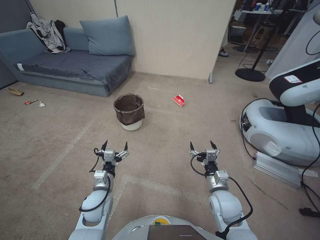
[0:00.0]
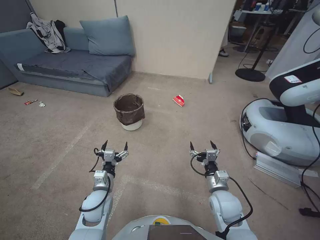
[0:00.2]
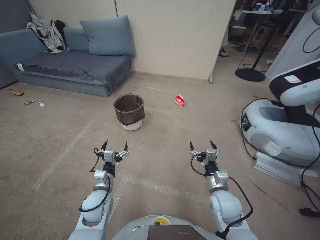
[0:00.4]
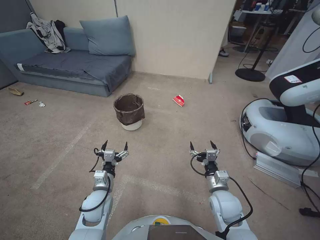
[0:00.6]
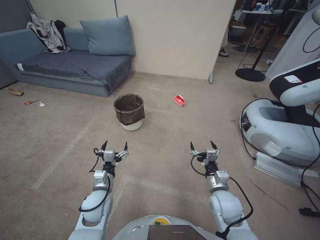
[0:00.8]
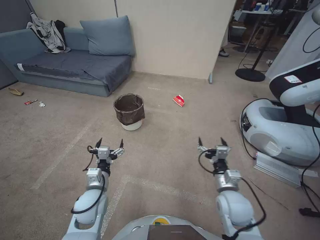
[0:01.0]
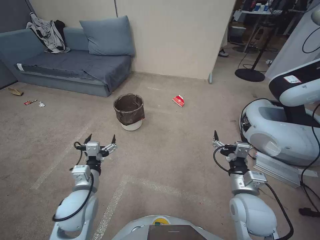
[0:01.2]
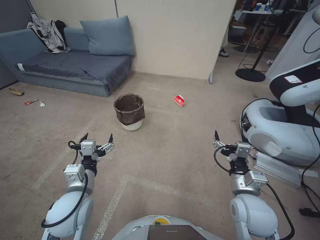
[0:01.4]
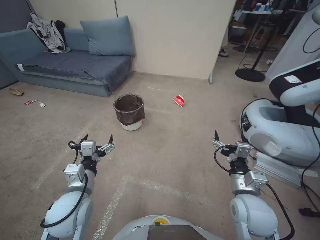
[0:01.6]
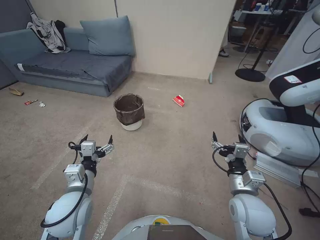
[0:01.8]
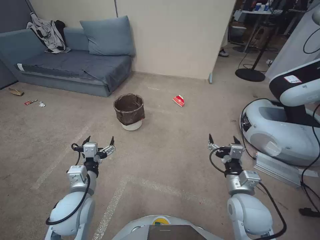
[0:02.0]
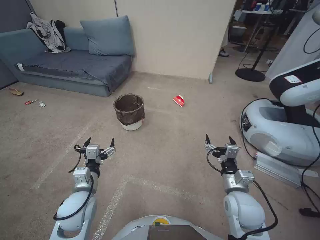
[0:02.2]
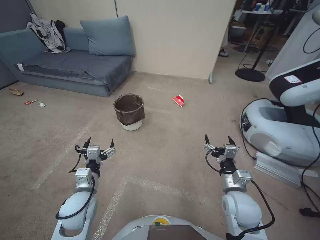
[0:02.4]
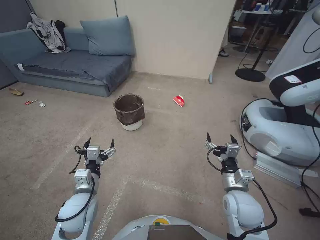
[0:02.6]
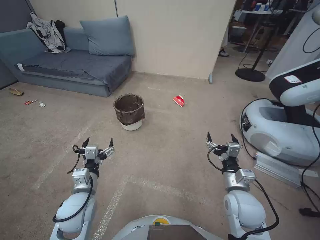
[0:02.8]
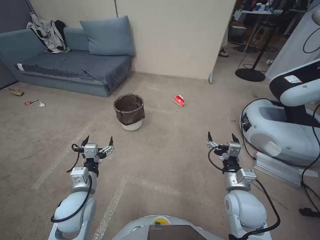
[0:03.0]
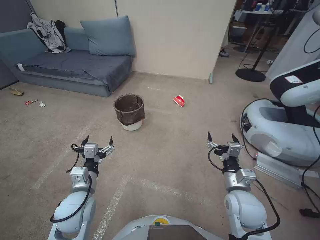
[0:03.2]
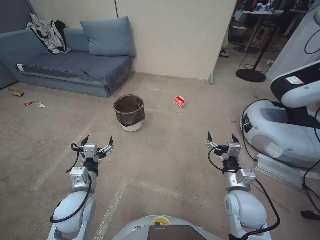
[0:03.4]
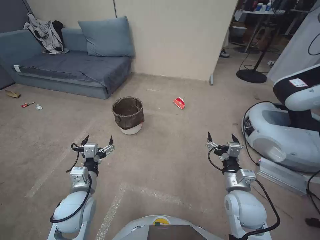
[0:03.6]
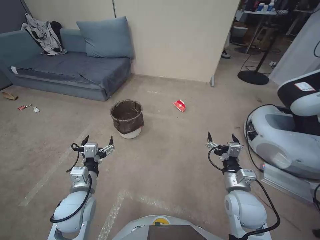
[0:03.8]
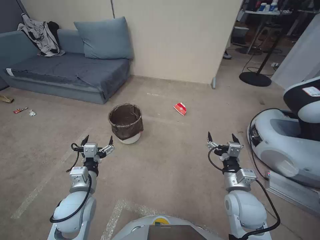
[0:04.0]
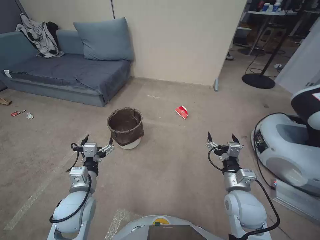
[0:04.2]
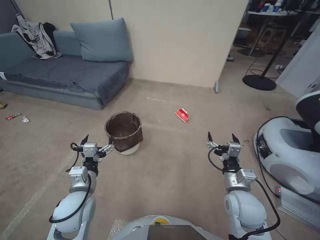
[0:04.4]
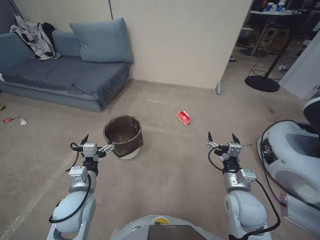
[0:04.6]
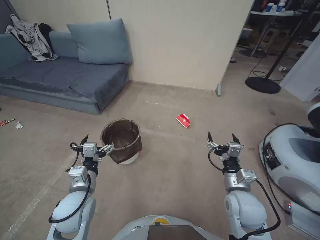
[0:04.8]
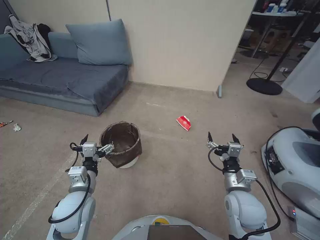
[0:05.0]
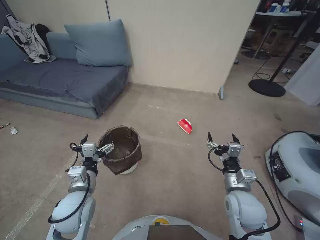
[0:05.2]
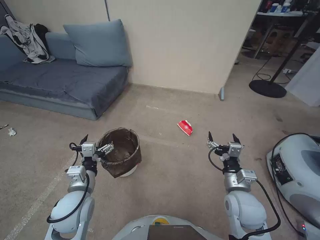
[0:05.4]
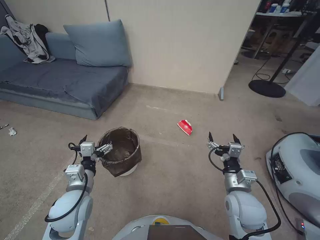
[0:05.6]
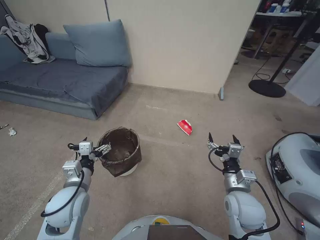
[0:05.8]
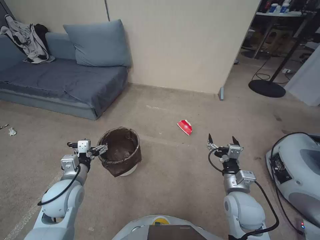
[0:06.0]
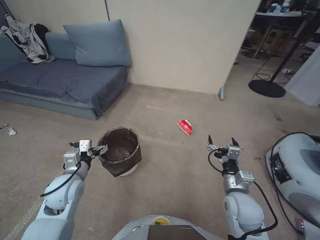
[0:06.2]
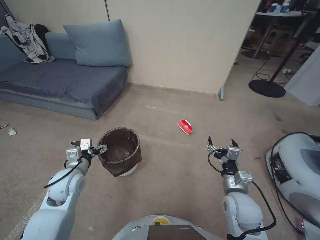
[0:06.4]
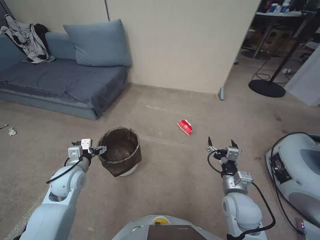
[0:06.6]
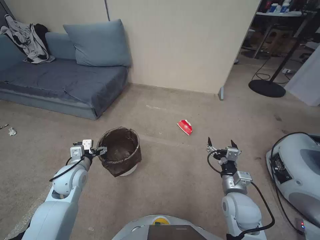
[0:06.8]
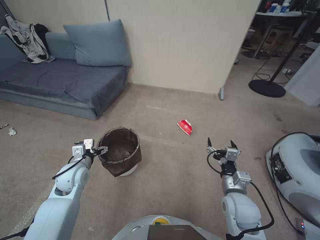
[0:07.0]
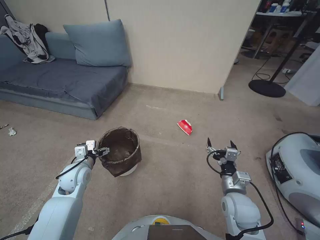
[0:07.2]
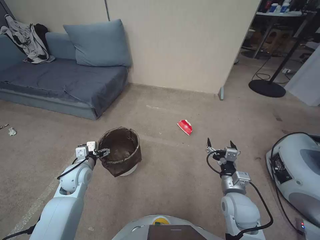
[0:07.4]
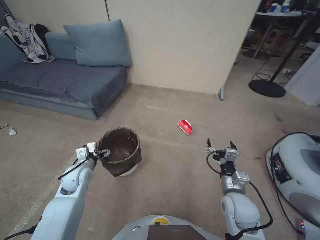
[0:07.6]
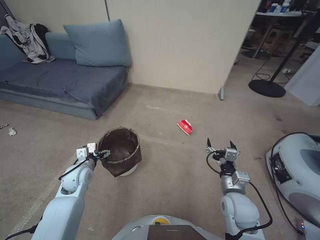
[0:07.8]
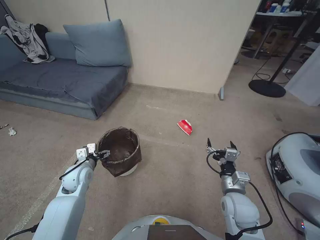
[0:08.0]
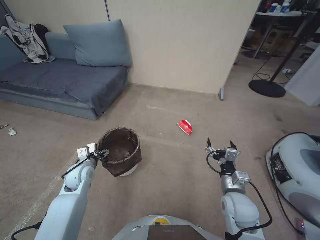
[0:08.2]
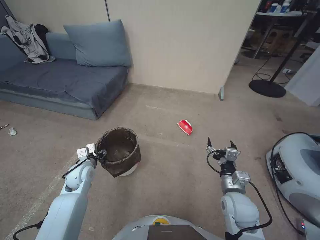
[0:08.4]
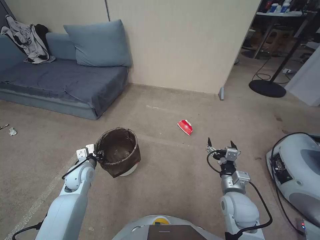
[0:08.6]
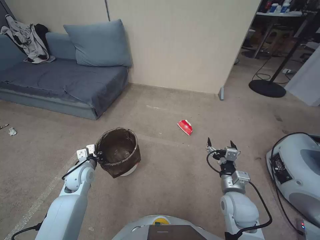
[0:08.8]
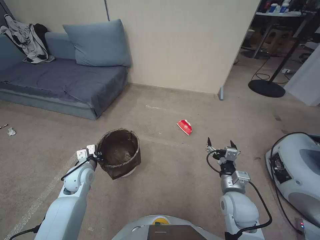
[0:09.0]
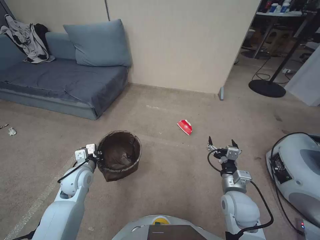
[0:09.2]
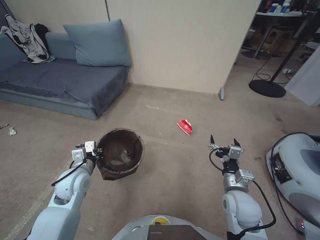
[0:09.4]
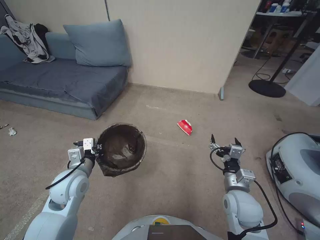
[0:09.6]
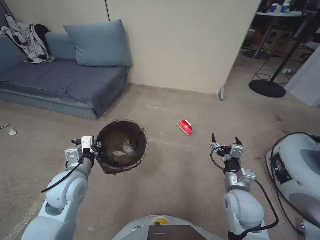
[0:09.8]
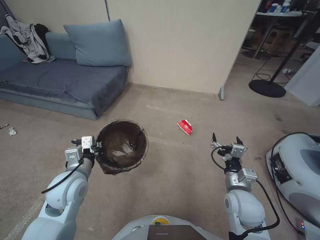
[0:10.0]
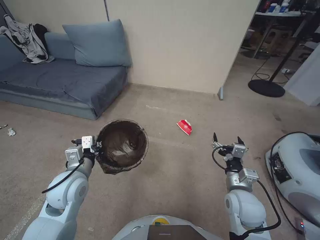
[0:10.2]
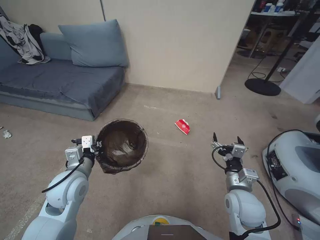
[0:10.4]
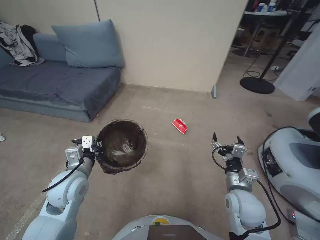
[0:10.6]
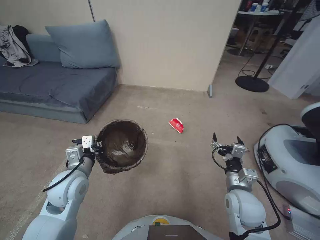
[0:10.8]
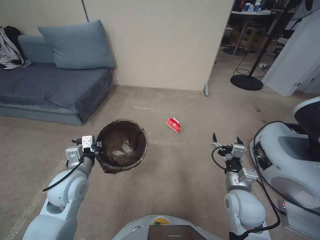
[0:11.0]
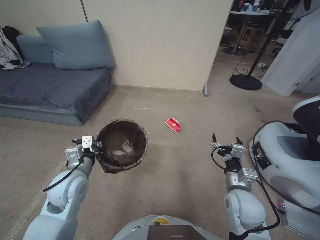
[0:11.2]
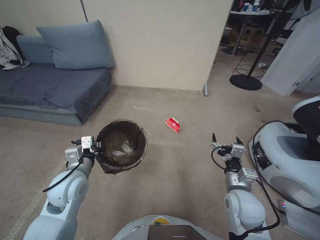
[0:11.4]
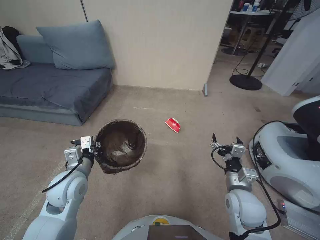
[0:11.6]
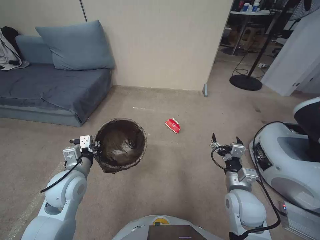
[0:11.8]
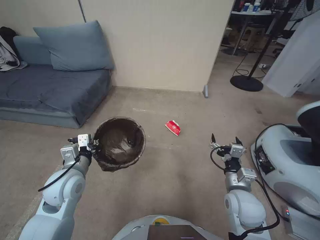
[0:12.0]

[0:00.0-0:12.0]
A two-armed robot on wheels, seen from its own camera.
Task of the whole recording: Pick up the trash bin, then pick up the garbage from the floor and place it into the trash bin.
0:06.0 to 0:07.6: The left gripper is displaced forward and downward by approximately 10 cm.
0:07.6 to 0:09.0: The left gripper closes.
0:09.0 to 0:10.4: The left gripper heads upward and backward, covering about 15 cm.

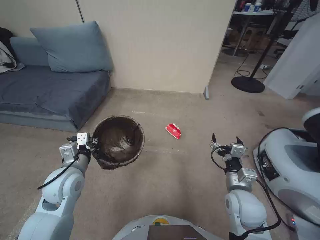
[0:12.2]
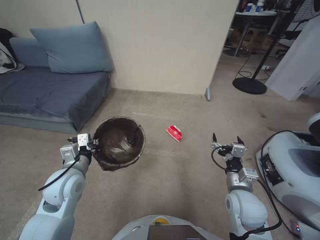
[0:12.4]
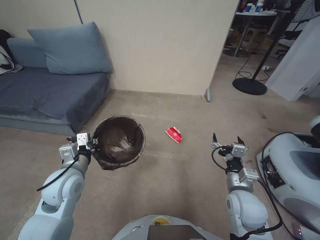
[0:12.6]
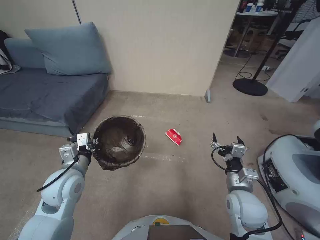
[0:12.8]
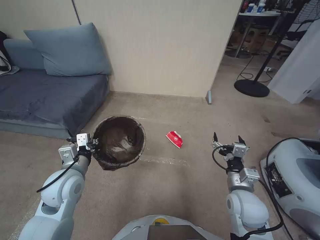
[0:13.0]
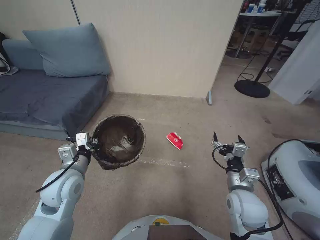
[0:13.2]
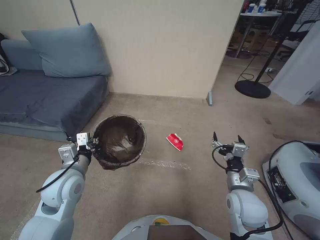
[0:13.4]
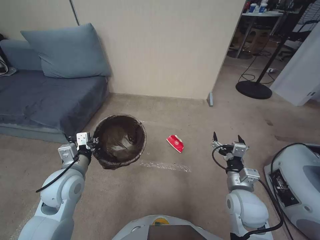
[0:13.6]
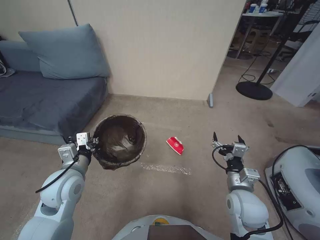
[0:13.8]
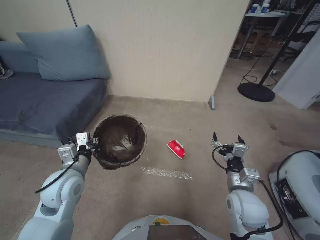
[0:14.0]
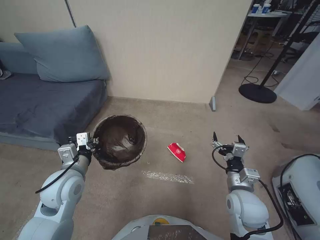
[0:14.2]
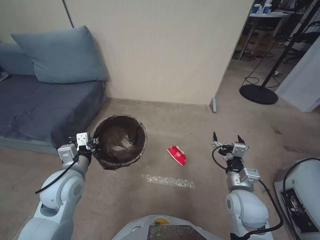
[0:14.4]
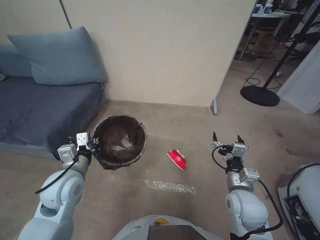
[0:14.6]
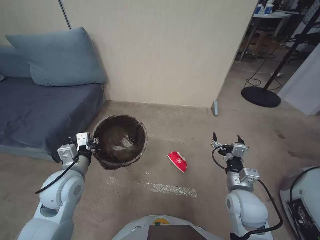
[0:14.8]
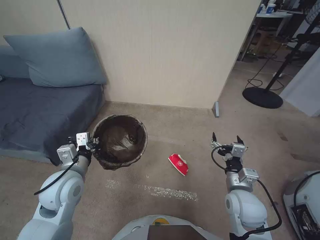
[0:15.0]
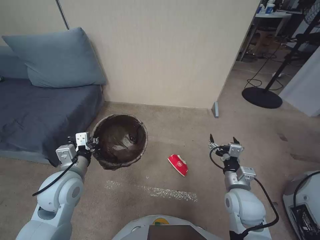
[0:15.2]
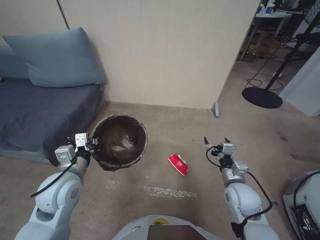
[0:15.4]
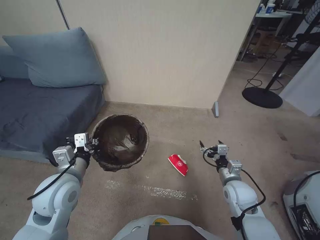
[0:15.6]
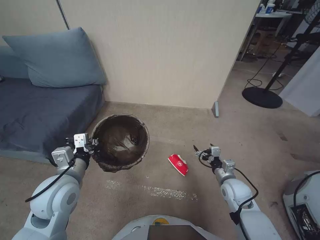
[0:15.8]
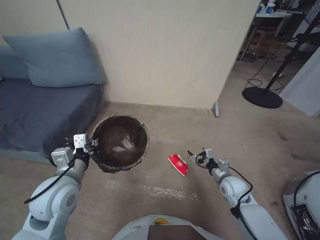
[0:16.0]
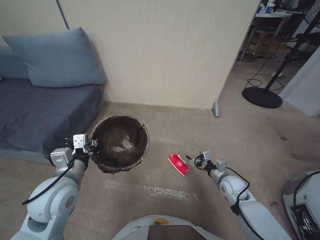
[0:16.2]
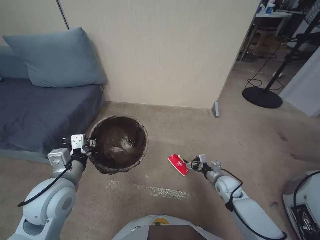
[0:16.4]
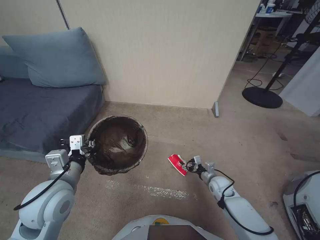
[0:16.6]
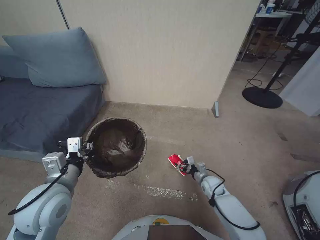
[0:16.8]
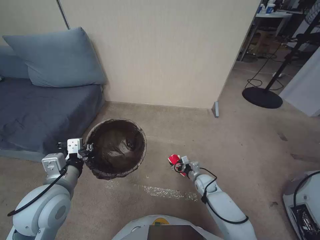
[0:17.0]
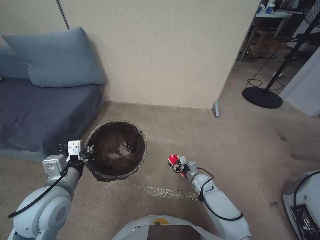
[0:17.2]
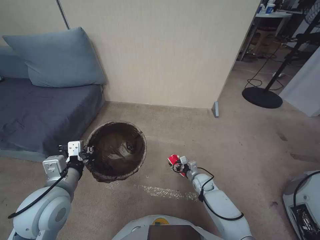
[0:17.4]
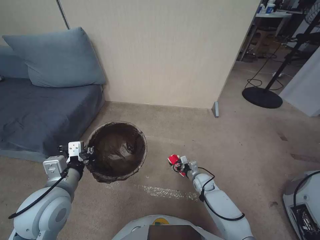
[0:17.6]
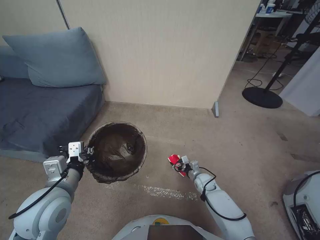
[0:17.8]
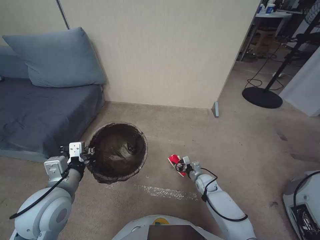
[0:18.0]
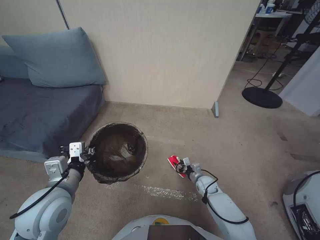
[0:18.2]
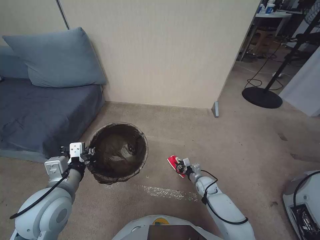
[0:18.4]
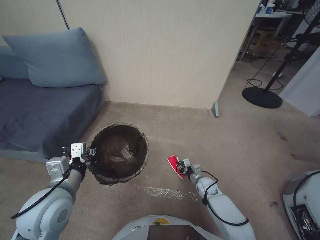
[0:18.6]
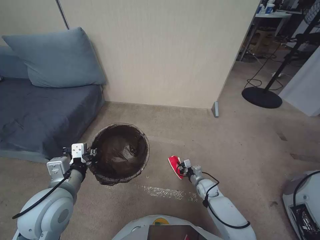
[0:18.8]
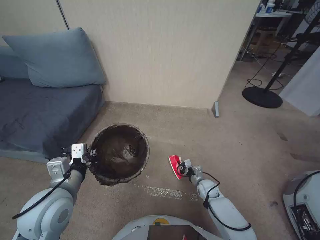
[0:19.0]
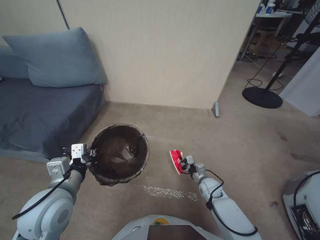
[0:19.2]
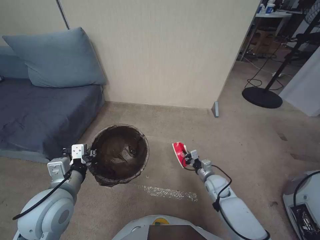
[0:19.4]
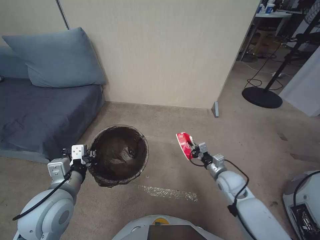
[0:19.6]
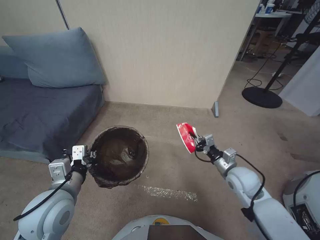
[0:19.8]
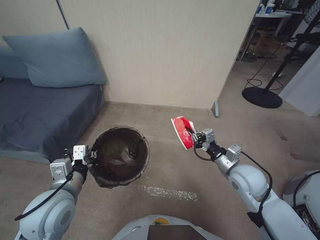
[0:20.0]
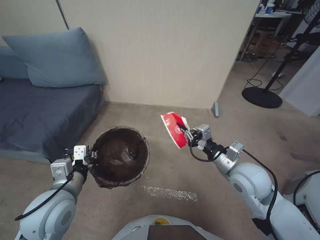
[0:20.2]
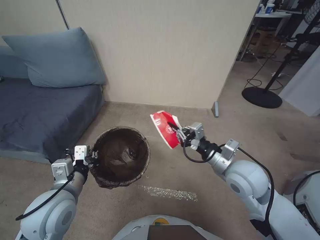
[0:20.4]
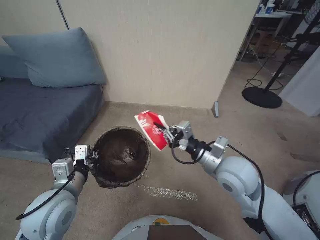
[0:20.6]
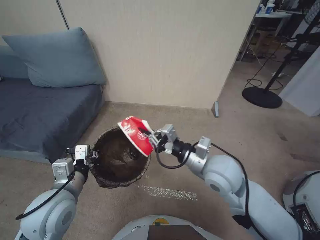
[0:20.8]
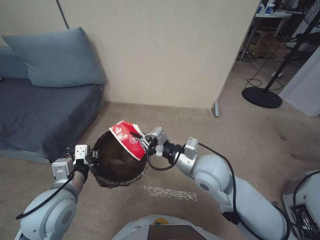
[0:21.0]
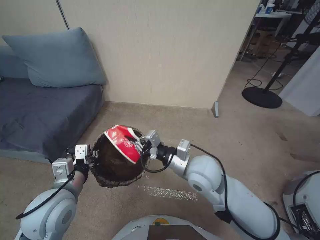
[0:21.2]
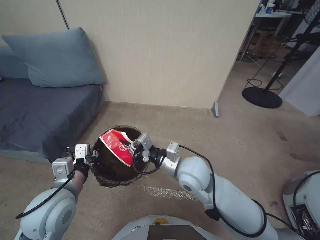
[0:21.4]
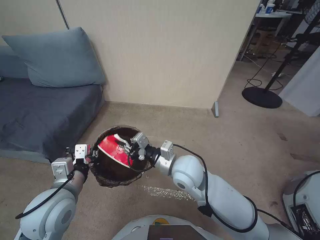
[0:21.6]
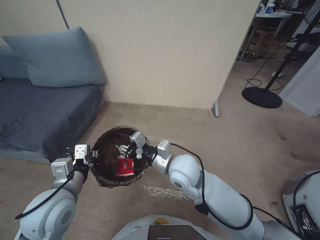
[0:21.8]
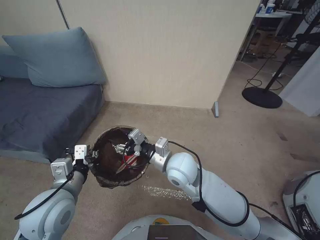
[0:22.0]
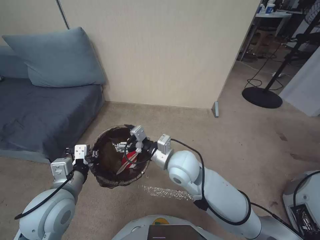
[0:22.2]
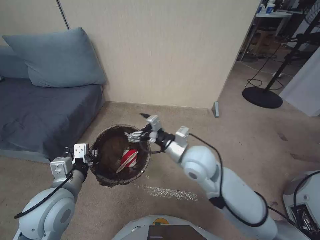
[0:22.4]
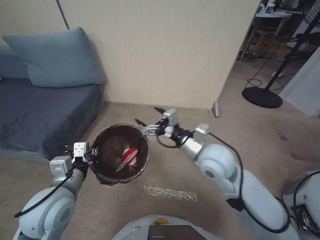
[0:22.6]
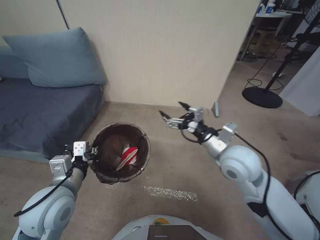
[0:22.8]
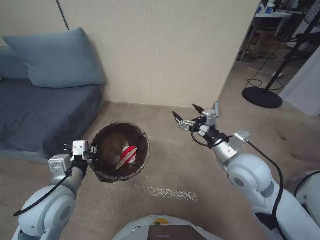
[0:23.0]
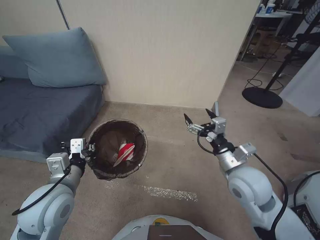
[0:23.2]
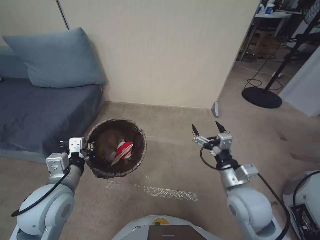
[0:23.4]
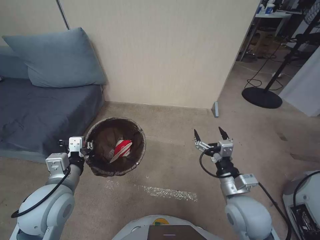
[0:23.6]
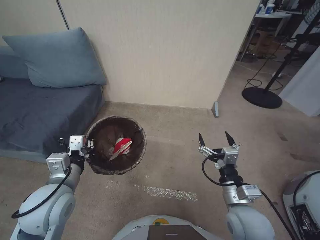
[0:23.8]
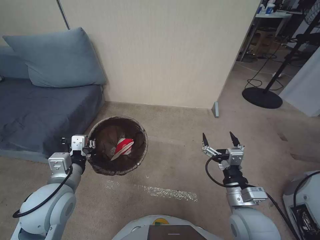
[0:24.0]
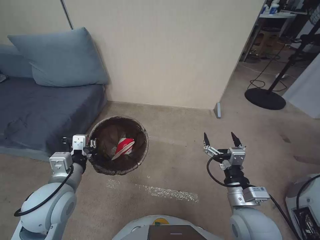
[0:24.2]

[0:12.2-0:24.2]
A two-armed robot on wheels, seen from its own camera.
Task of the whole recording: Pick up the trash bin, then pick up the garbage from the floor and place it into the trash bin.
0:12.2 to 0:13.8: Both grippers stay put.
0:13.8 to 0:15.2: The two grippers keep their place.
0:15.2 to 0:16.6: The right gripper moves downward and forward, about 20 cm.
0:16.6 to 0:18.2: The right gripper moves downward and to the left, about 10 cm, and closes its fingers.
0:18.2 to 0:19.8: The right gripper travels upward by approximately 20 cm, and closes its fingers.
0:19.8 to 0:21.2: The right gripper moves to the left and upward, some 20 cm.
0:21.2 to 0:22.6: The right gripper opens its fingers.
0:22.6 to 0:24.2: The right gripper goes some 20 cm backward, to the right and downward.
